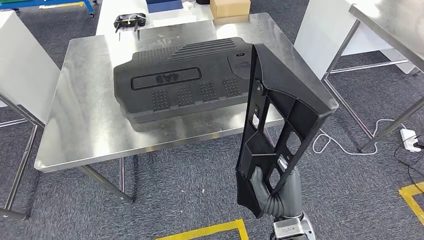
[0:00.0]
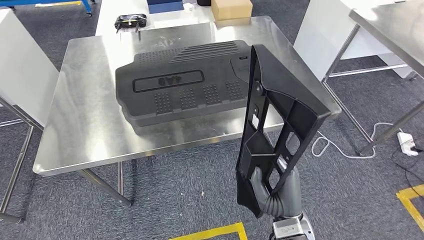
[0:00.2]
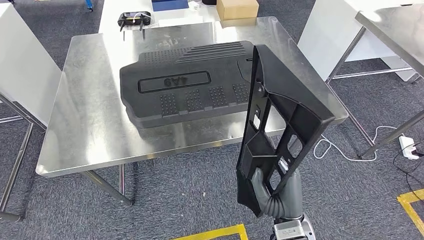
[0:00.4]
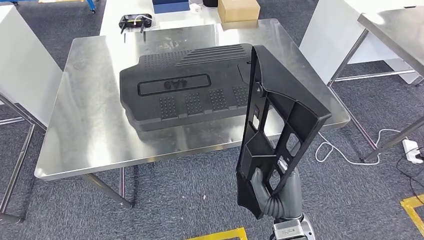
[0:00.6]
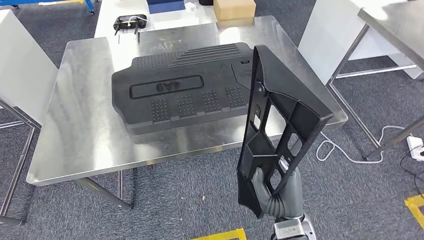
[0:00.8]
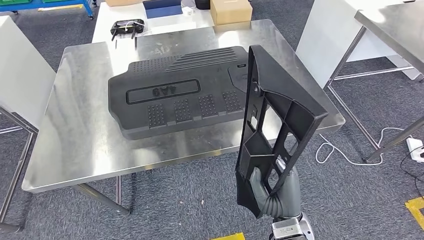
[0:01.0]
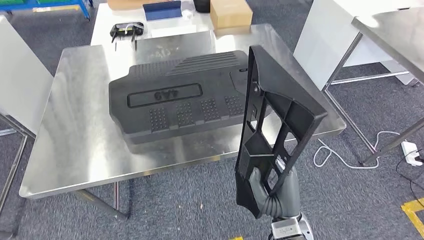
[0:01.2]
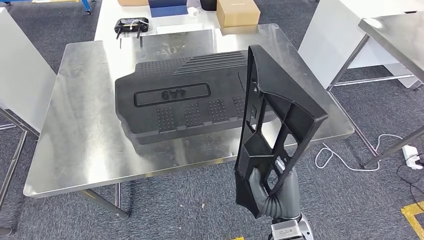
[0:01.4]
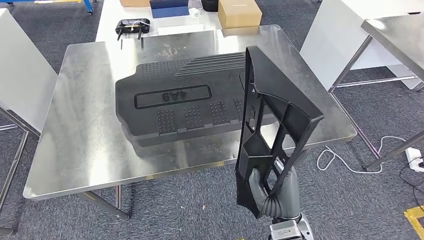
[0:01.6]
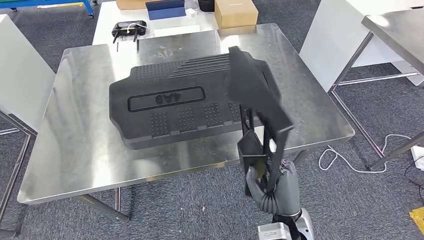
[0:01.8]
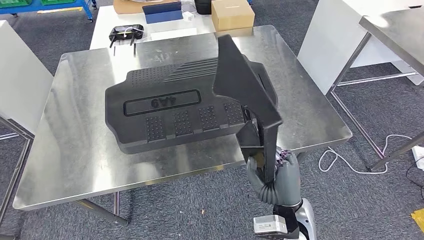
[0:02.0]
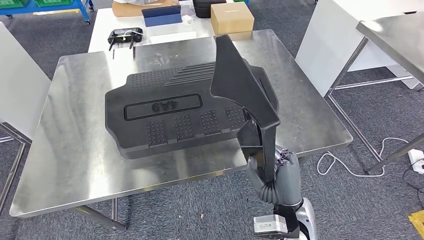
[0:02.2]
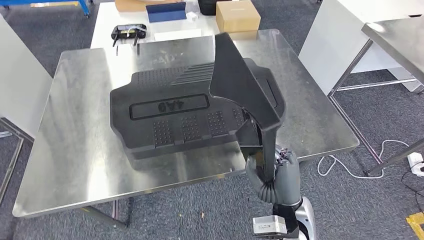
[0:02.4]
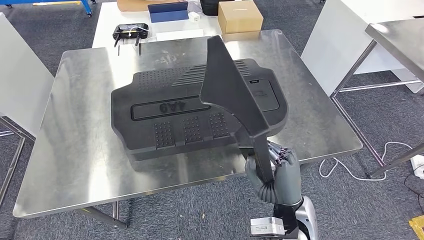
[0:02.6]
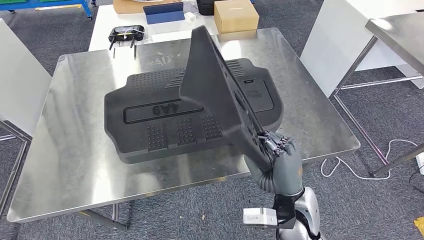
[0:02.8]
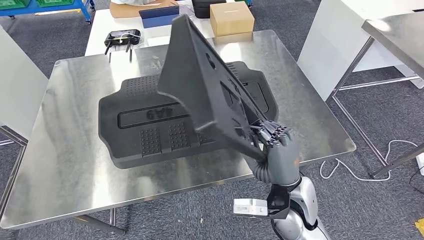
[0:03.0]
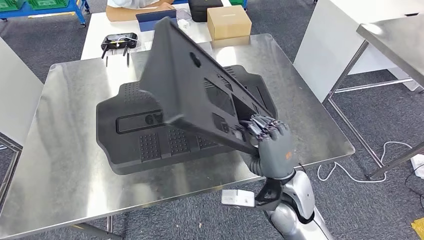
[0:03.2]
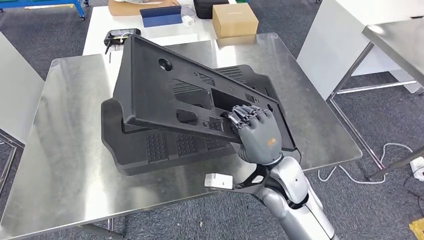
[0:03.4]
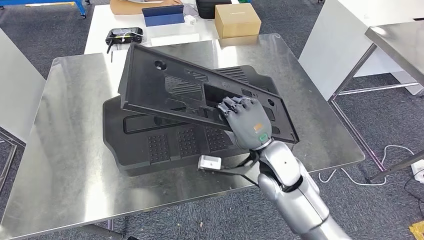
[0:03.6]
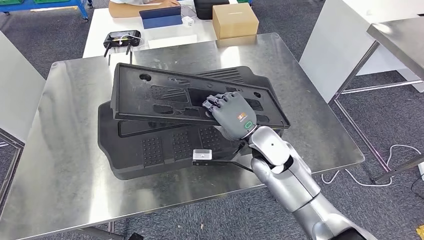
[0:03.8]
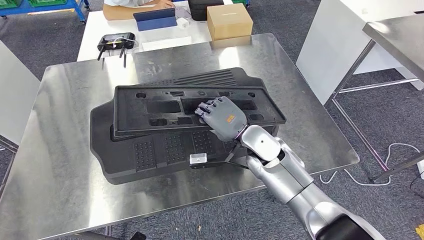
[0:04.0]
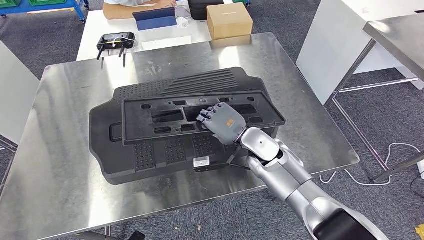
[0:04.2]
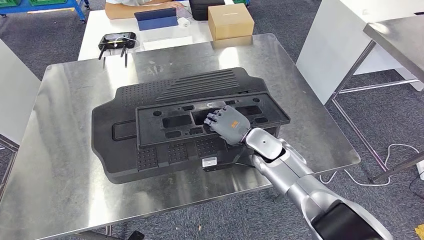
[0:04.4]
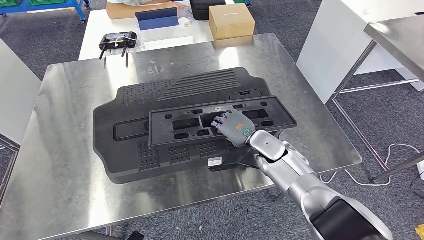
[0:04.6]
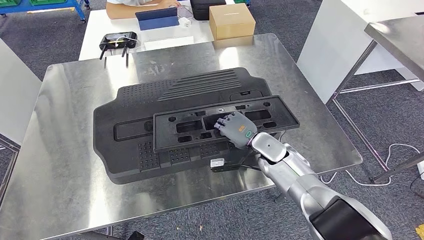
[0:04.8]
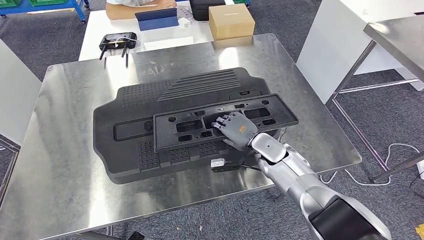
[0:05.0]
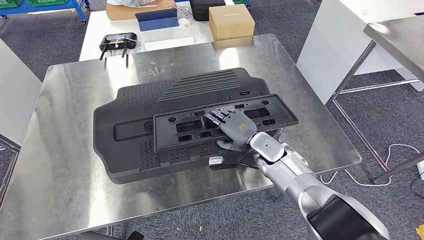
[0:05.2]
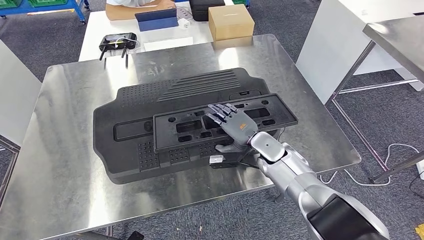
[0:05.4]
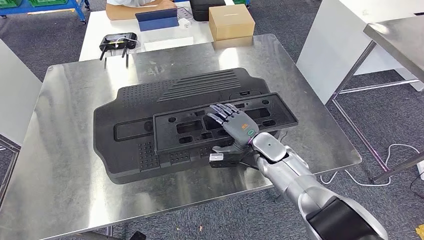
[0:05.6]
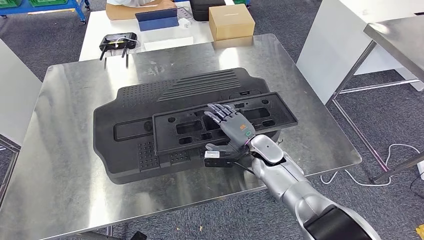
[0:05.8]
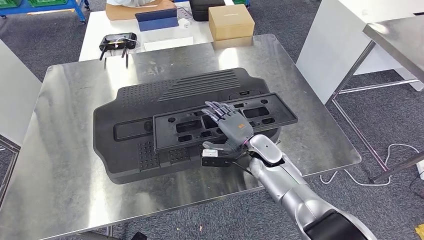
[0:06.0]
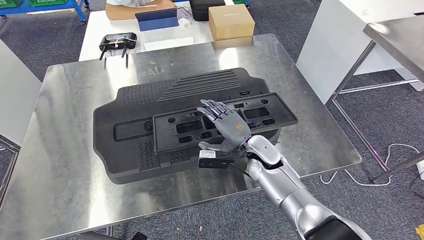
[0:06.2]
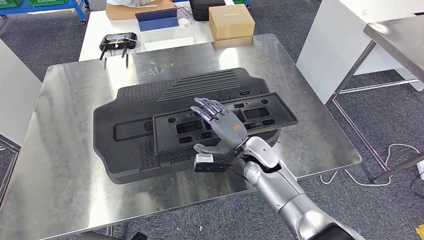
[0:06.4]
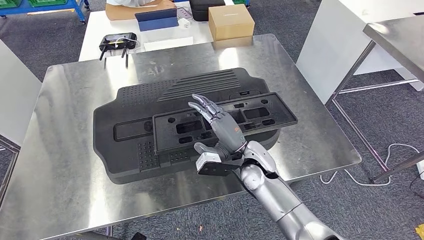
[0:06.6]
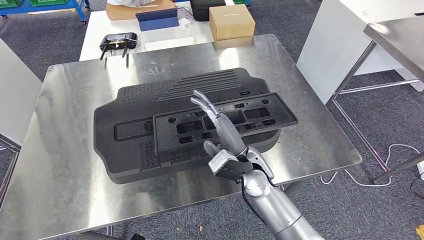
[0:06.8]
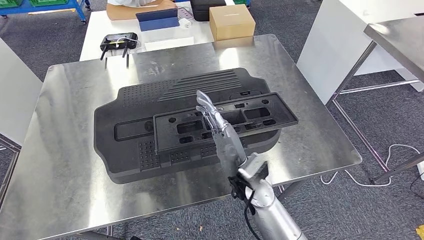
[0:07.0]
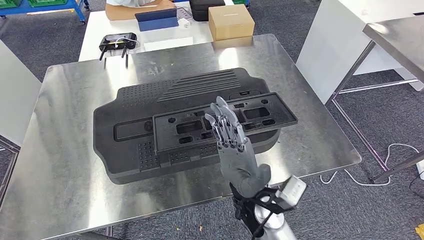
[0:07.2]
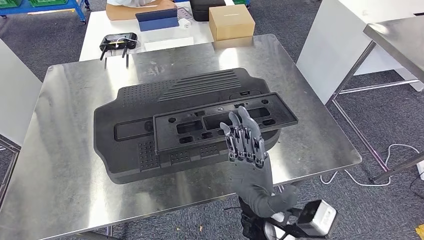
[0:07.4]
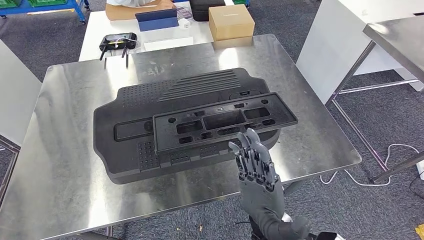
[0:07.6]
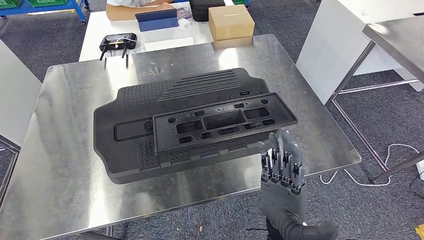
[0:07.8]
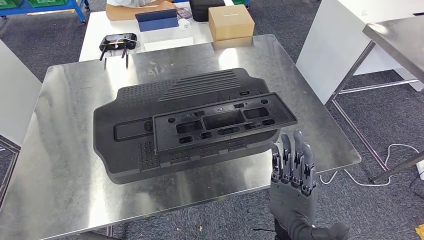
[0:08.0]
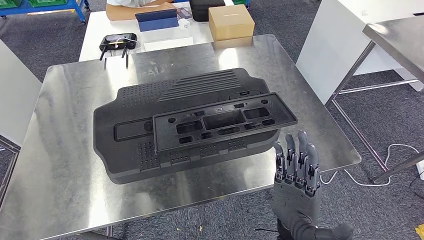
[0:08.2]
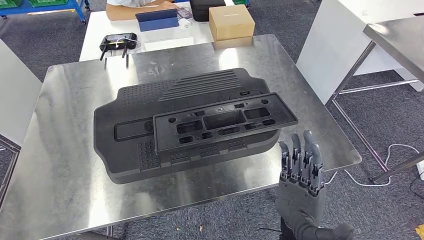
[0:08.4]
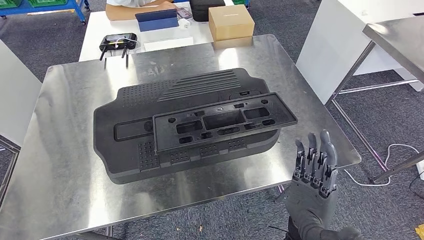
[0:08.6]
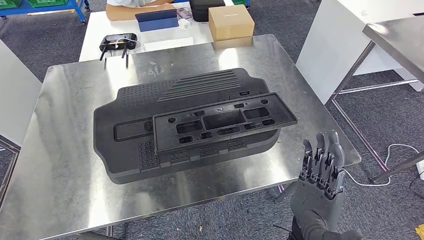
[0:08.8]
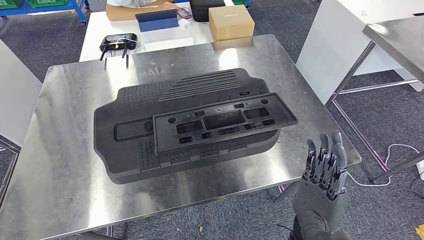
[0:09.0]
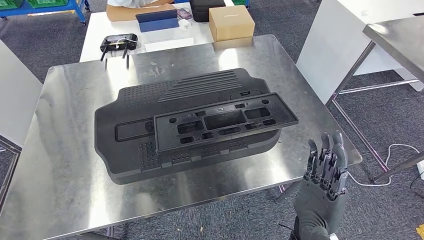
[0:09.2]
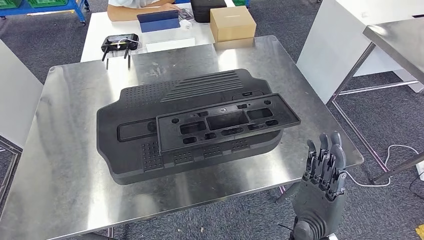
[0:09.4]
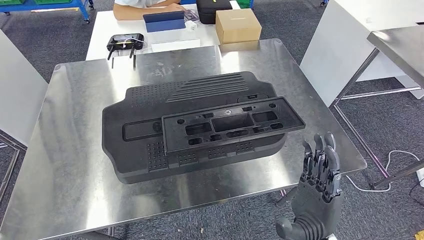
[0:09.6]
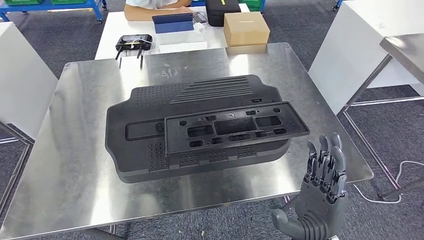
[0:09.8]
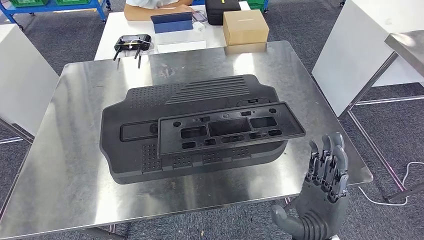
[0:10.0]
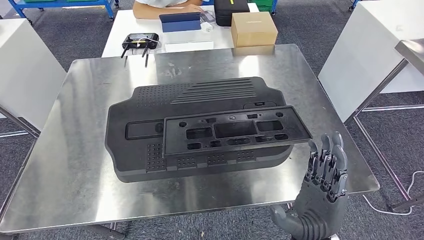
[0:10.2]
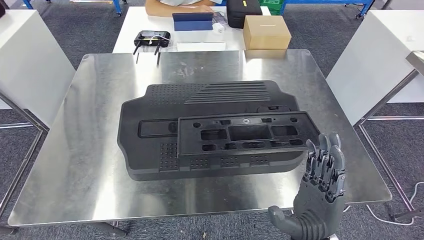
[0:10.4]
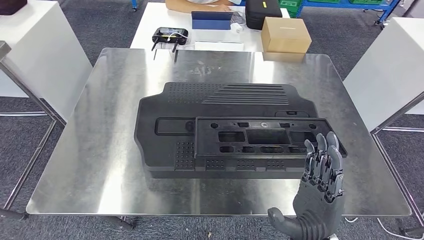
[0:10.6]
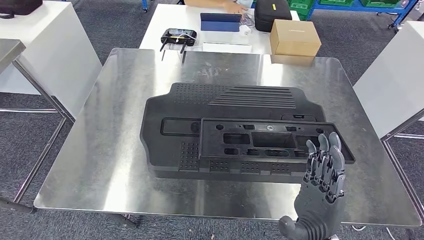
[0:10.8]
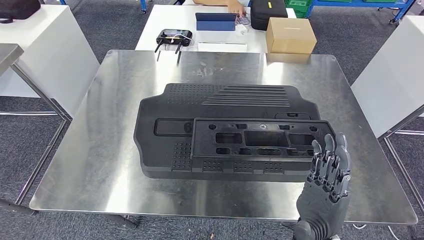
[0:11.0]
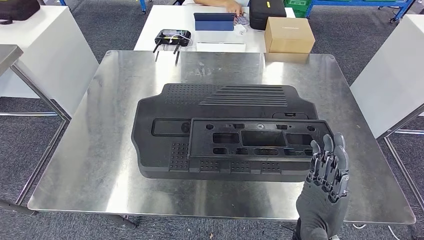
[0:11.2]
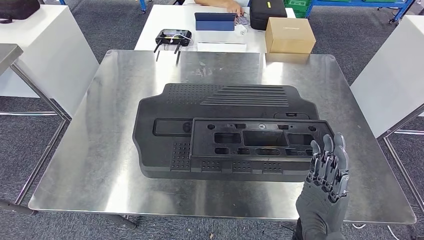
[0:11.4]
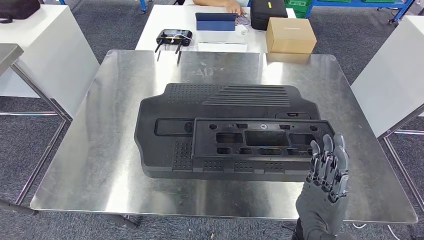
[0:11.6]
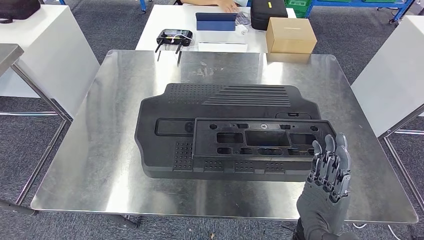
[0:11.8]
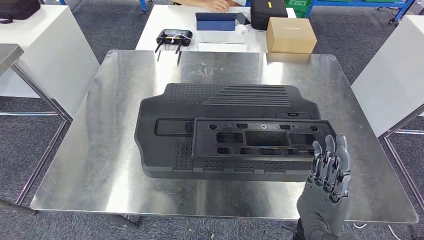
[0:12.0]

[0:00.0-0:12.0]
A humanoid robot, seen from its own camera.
6.0 to 7.6 s: The right hand moves backward, approximately 20 cm.
7.6 to 9.0 s: The right hand heads to the right, covering approximately 5 cm.

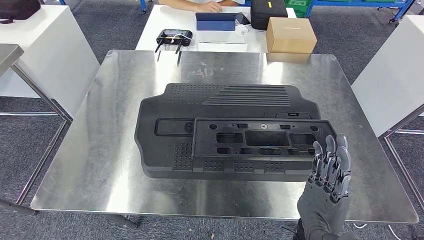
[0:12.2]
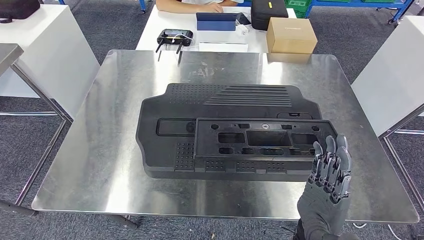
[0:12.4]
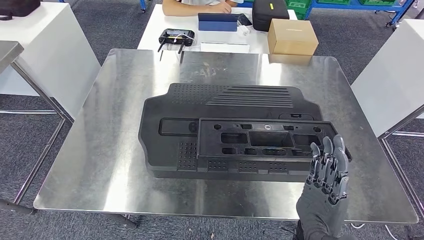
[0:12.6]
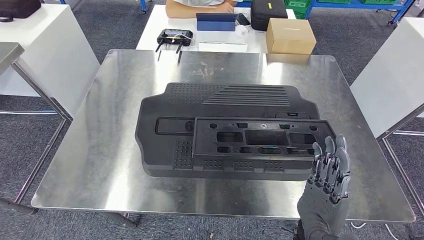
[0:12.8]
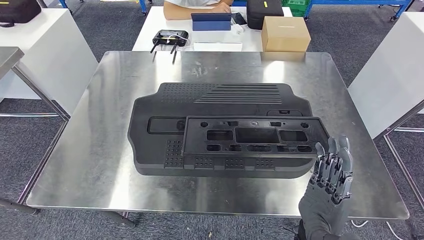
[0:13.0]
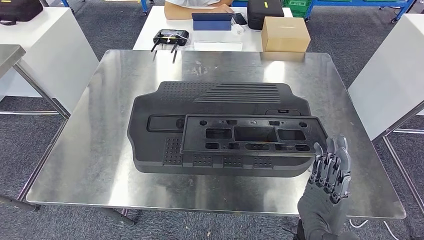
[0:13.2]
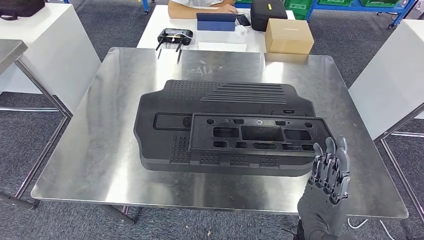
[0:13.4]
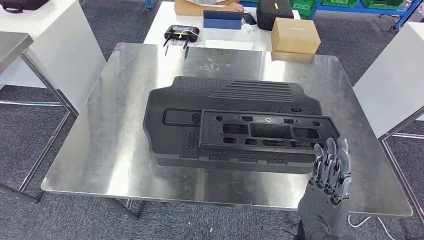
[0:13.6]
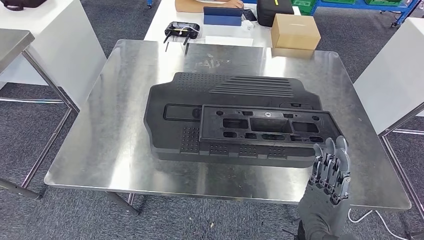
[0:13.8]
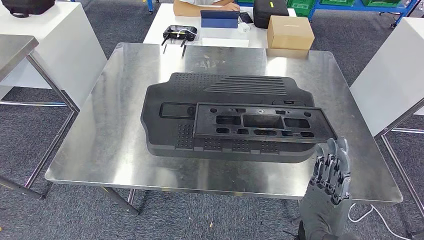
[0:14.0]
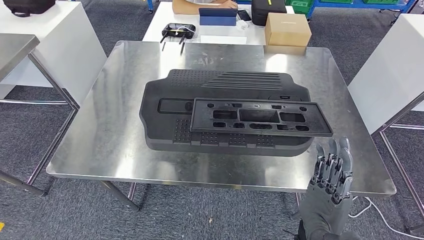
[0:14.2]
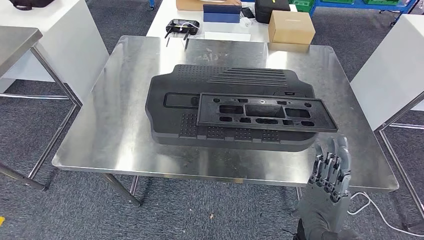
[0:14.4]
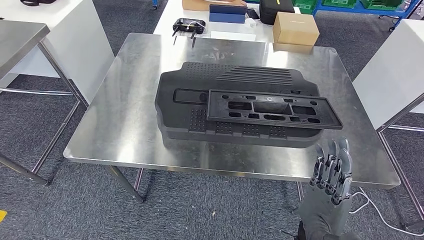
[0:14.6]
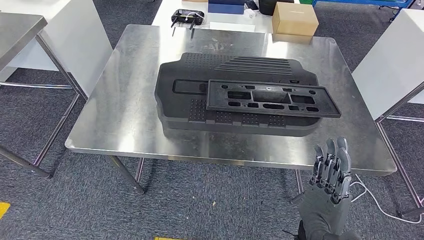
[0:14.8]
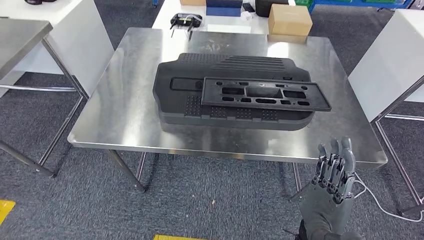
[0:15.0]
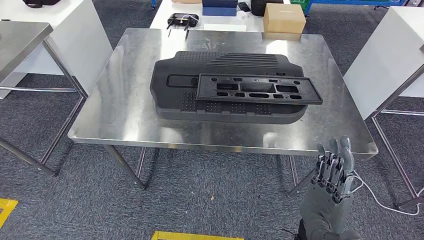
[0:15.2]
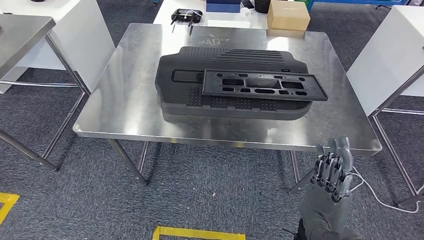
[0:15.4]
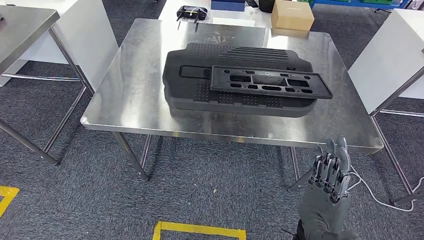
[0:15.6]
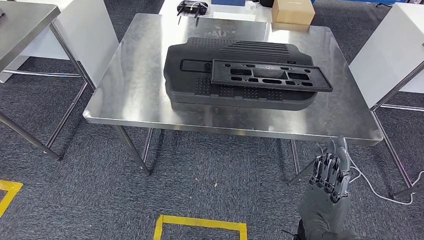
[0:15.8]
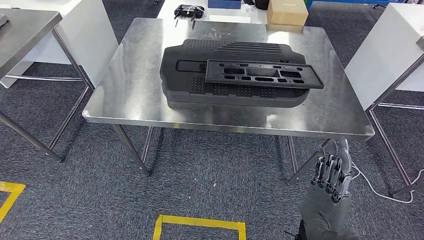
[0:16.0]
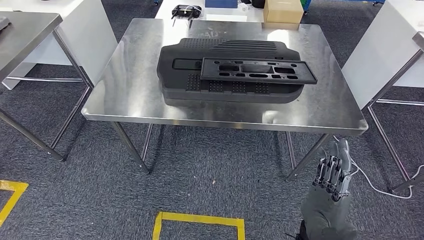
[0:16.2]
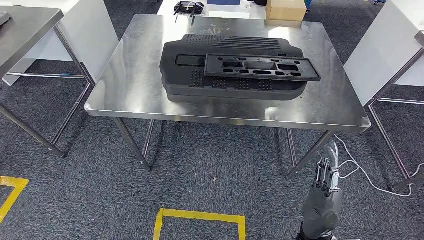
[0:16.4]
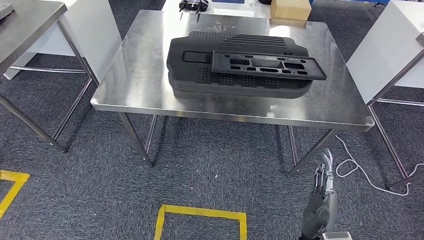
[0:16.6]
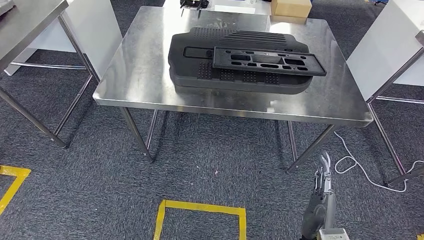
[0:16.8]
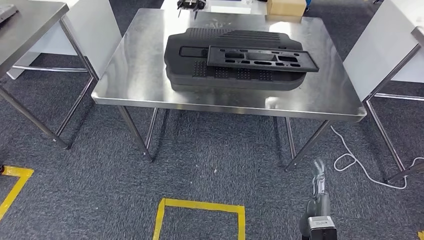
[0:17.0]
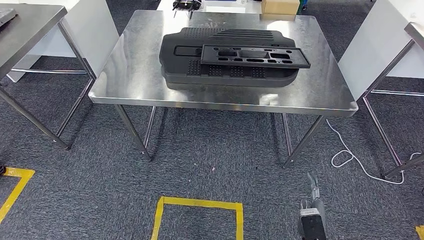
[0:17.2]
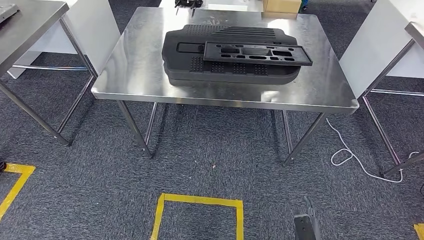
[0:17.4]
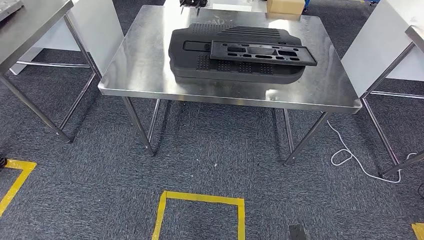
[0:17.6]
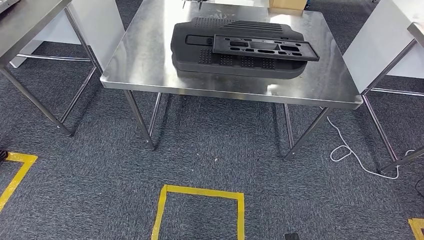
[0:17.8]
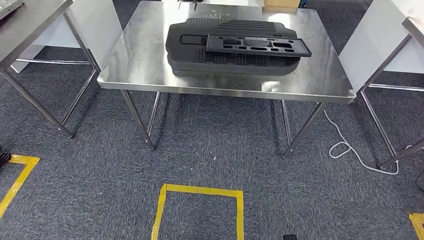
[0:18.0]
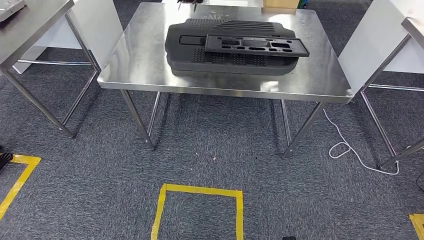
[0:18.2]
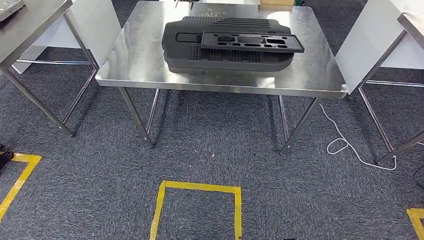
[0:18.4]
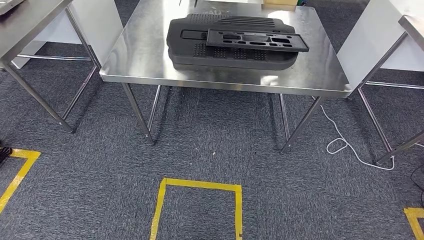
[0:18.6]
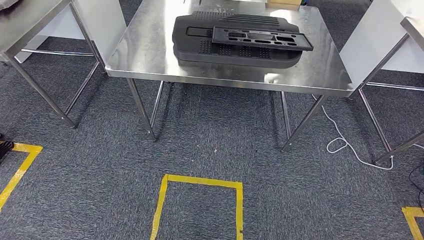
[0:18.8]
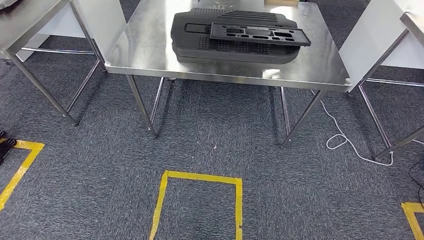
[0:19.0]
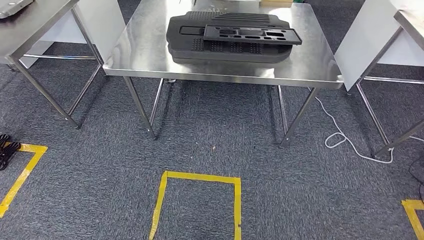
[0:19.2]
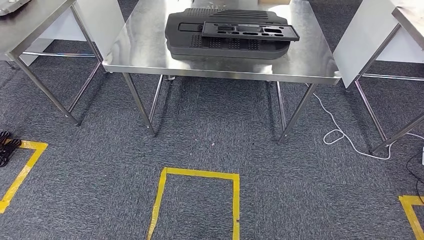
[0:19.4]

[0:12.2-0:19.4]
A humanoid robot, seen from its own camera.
Step, 12.2 to 14.6 s: Insert the large material into the corresponding slot on the workbench.
